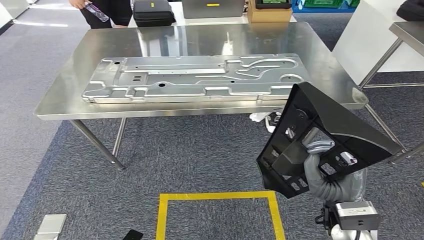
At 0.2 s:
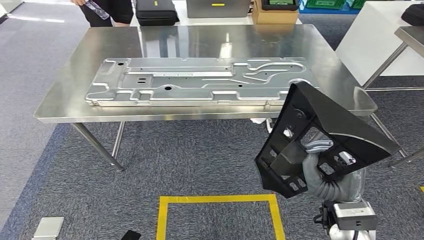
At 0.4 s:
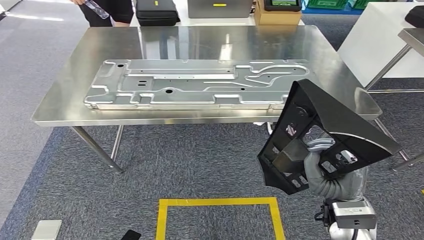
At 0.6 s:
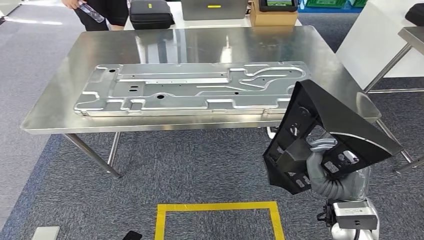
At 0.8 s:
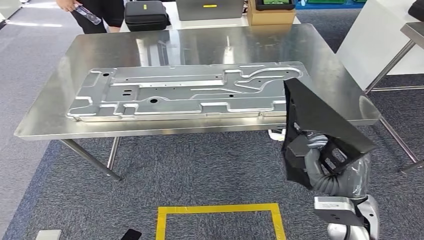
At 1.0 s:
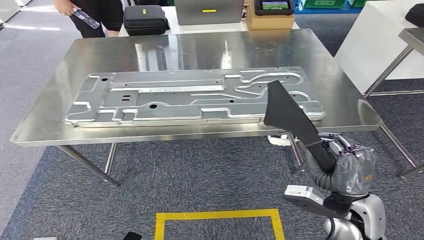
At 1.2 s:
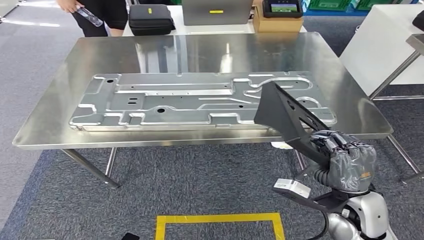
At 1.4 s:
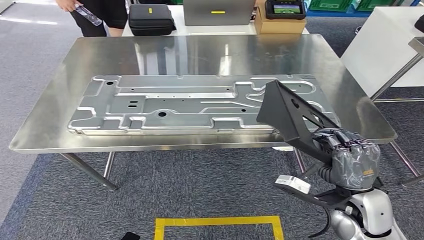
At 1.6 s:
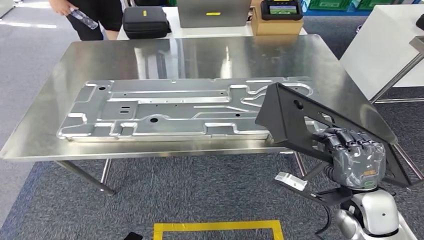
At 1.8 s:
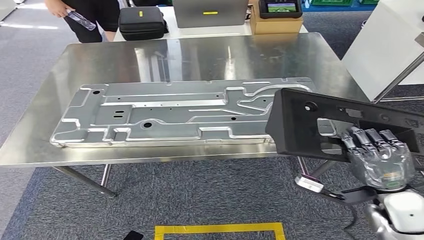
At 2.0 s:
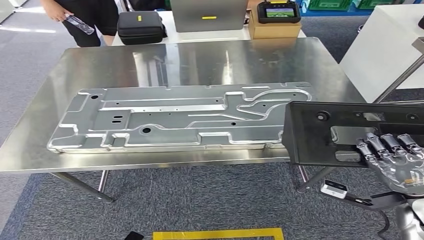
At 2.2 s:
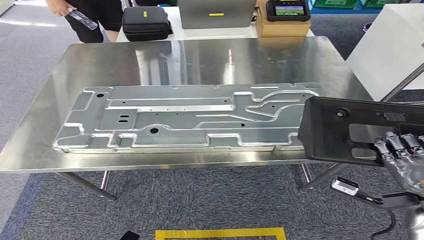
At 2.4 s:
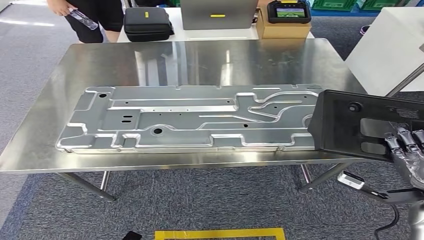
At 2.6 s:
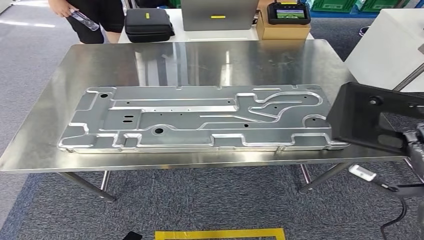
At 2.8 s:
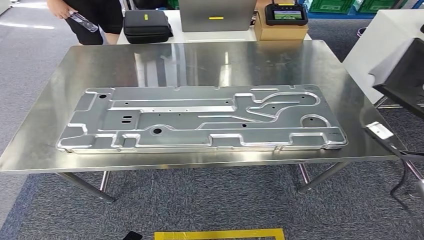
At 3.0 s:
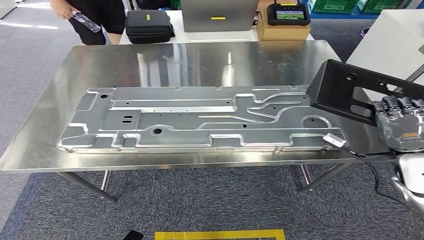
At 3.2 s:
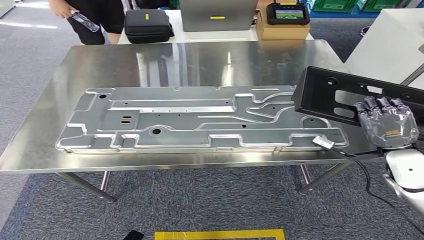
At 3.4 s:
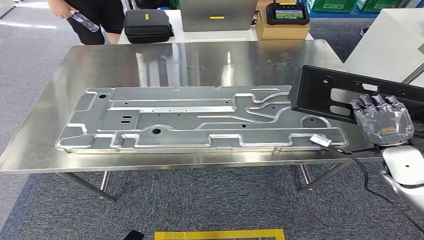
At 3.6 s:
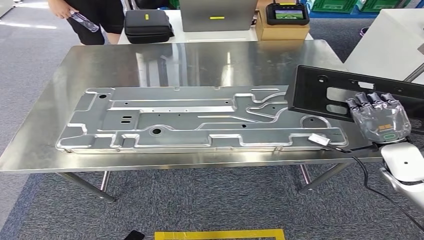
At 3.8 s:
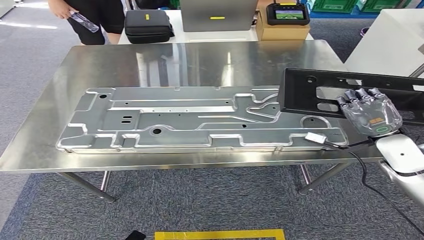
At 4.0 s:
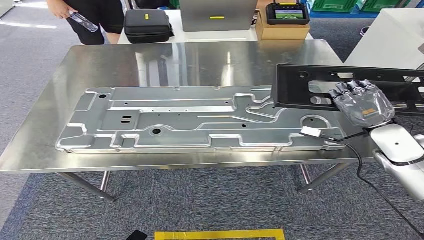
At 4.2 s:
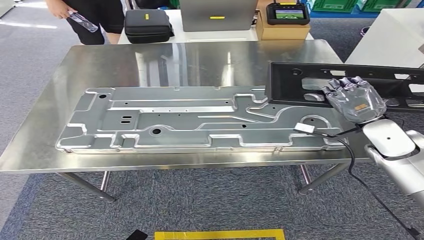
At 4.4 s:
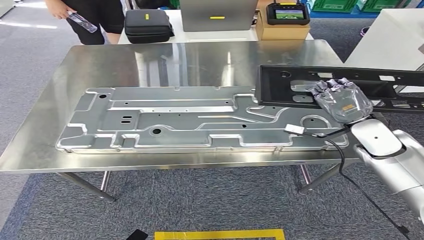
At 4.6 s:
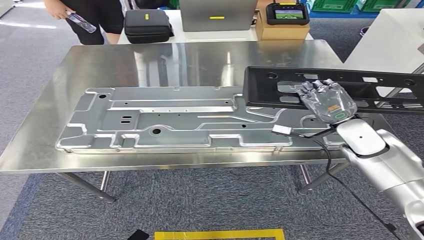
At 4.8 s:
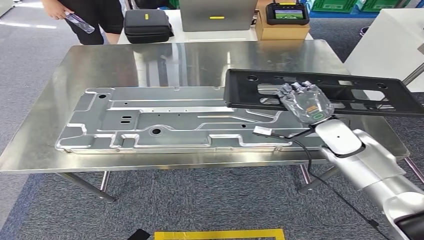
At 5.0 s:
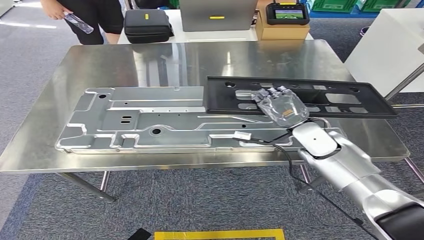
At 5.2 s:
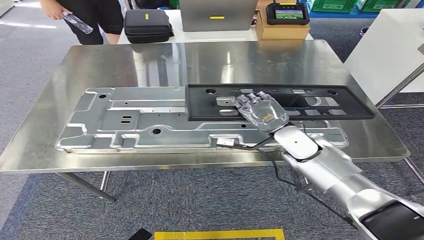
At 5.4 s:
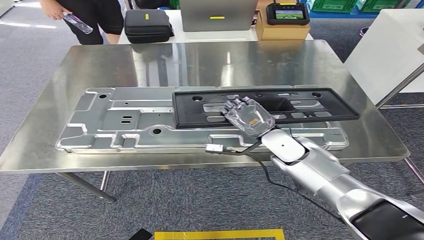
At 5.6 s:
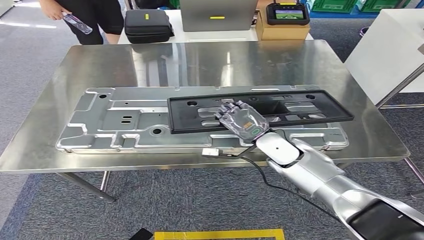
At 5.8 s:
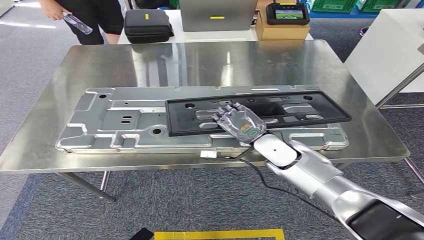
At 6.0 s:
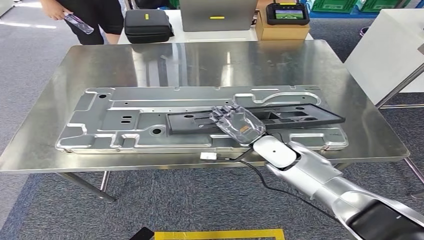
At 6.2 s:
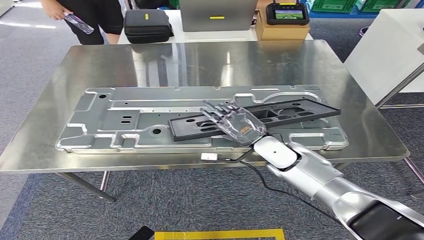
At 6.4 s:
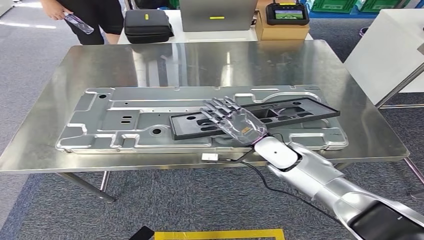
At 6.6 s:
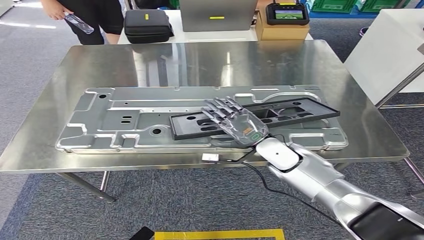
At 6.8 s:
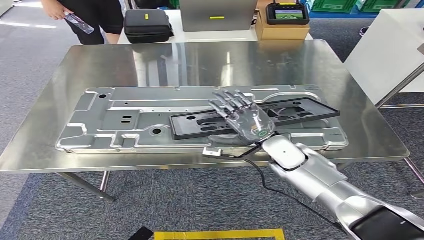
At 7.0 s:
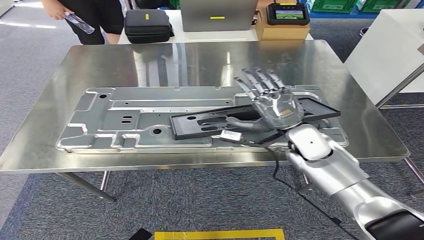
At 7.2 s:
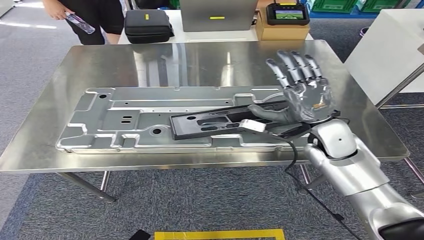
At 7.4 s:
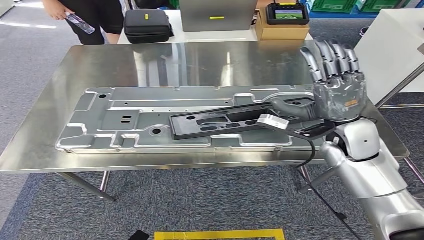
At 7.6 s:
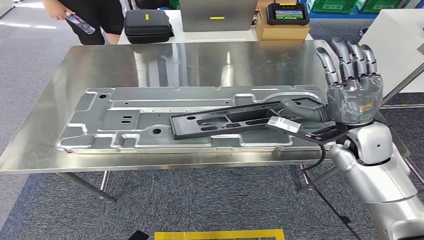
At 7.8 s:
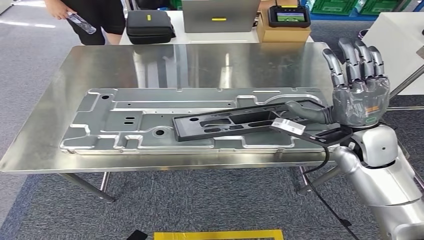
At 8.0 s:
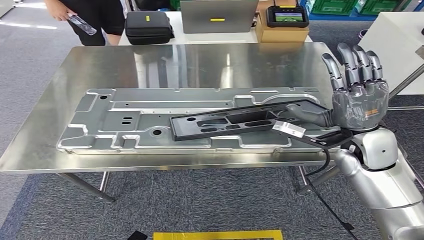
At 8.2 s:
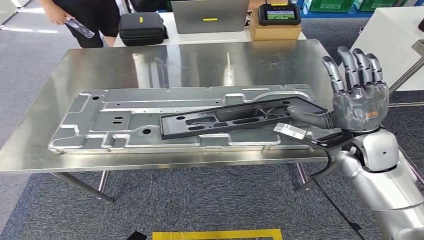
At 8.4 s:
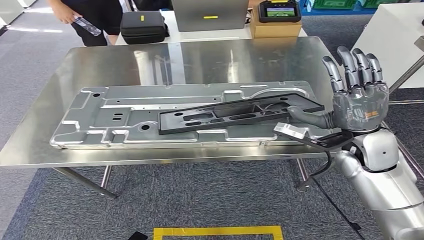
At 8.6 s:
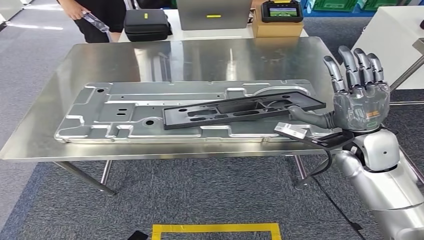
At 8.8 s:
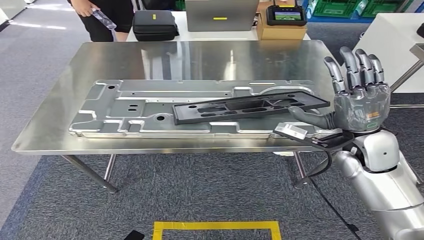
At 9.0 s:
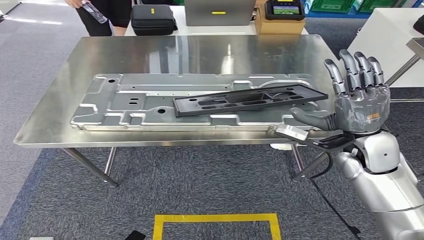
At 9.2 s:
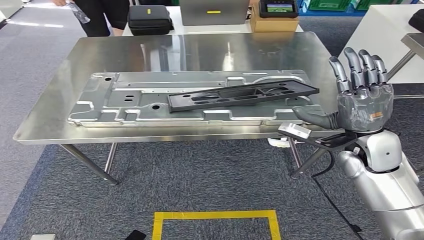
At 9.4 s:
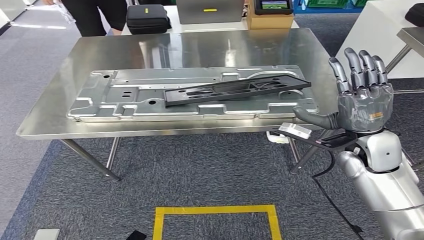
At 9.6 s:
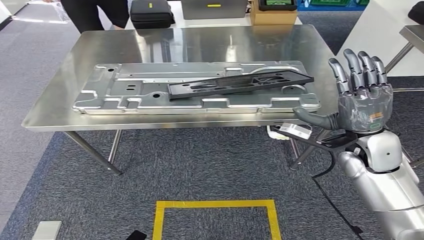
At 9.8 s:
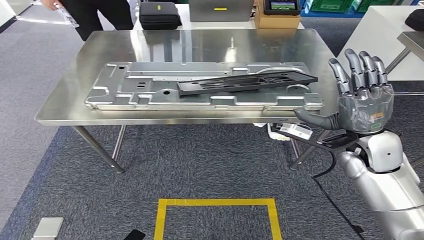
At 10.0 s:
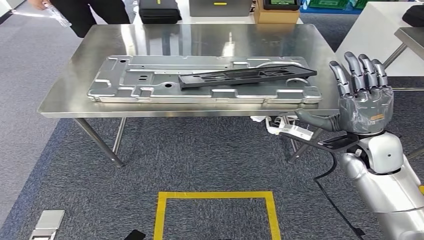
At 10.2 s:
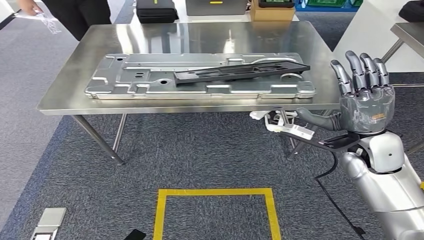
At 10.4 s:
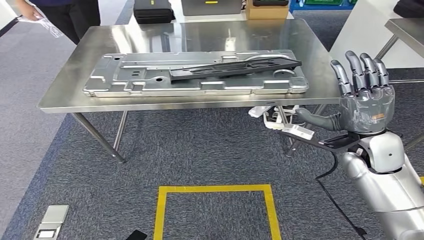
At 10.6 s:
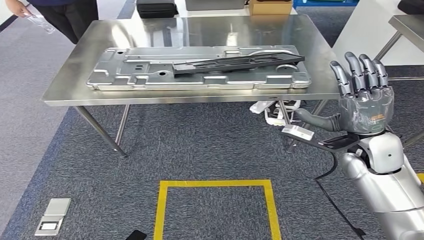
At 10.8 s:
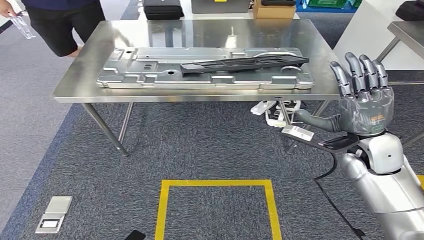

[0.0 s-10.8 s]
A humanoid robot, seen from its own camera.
Step, 3.0 to 7.6 s: Insert the large material into the corresponding slot on the workbench.
3.0 to 4.6 s: The right hand shifts roughly 10 cm forward and to the left.

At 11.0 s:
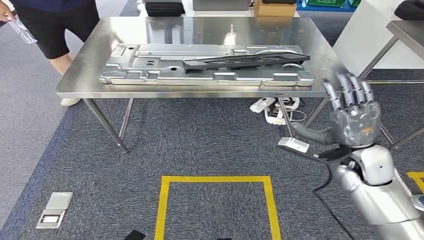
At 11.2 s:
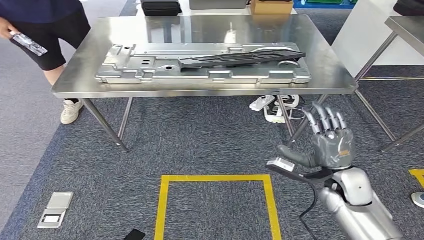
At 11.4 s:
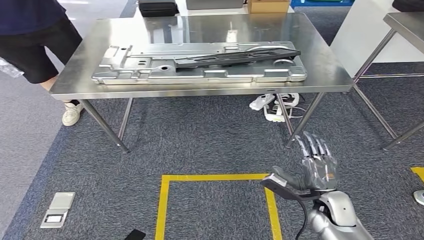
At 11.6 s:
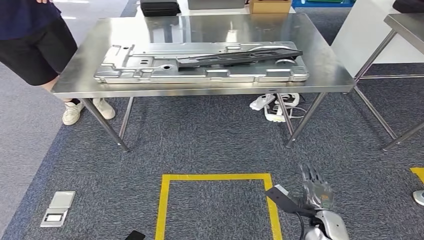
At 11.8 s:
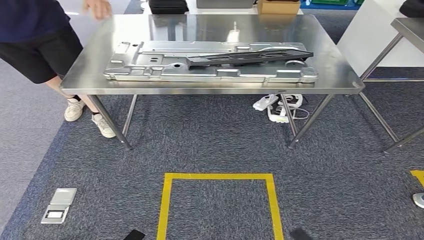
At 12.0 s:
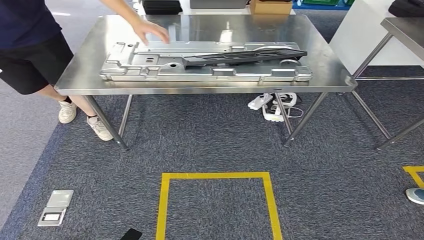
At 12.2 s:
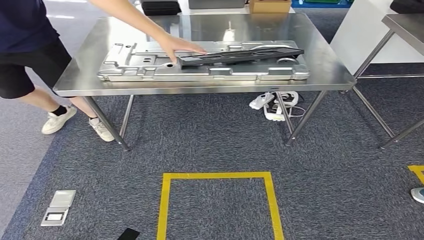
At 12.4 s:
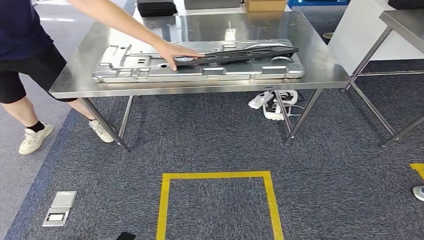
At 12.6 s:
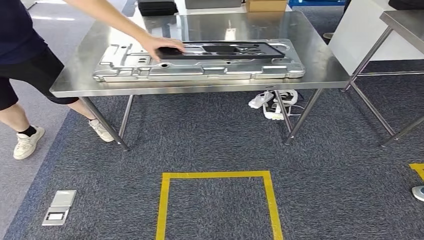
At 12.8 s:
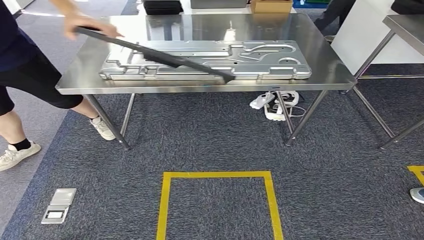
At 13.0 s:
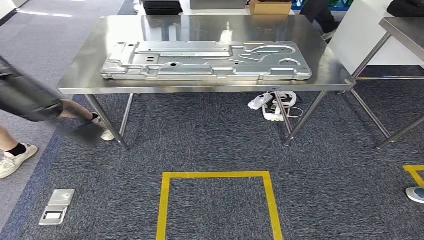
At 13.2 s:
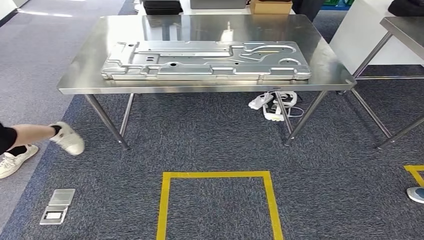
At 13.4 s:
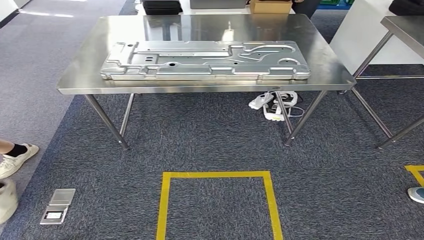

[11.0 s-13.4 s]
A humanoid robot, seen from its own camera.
Step, 11.0 to 13.4 s: Return to the initial position at the shelf.
